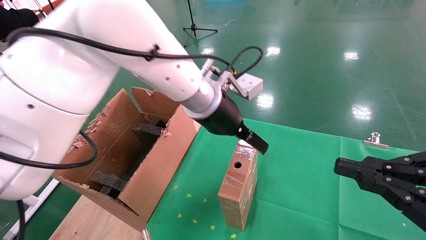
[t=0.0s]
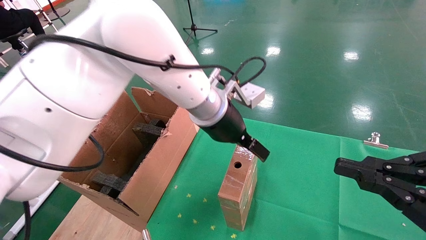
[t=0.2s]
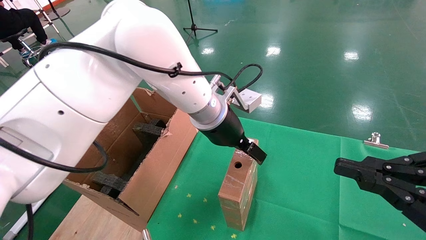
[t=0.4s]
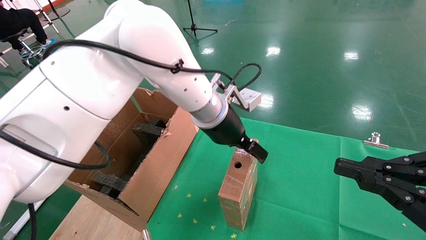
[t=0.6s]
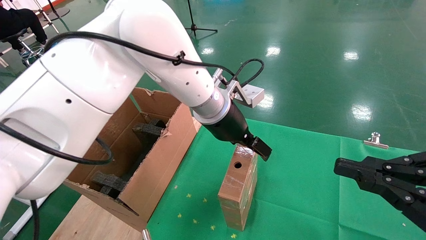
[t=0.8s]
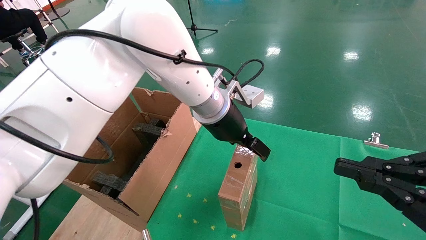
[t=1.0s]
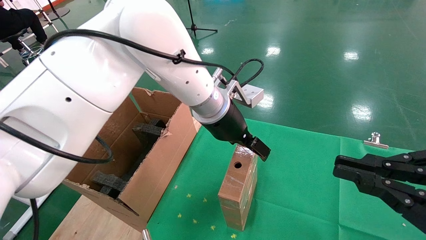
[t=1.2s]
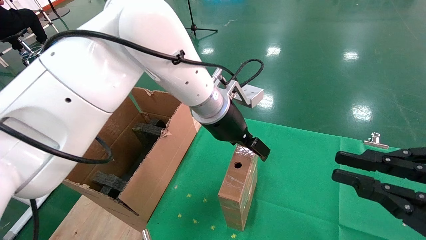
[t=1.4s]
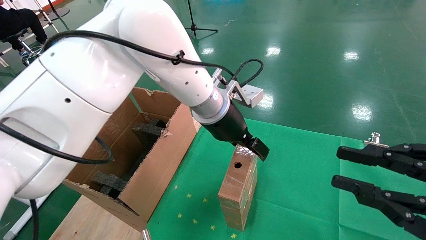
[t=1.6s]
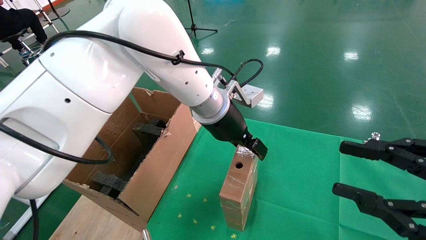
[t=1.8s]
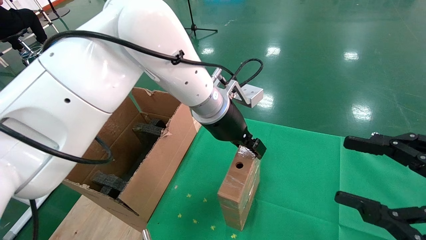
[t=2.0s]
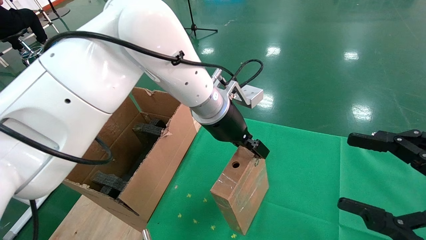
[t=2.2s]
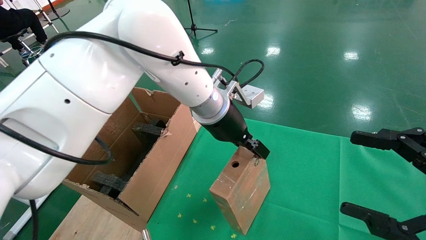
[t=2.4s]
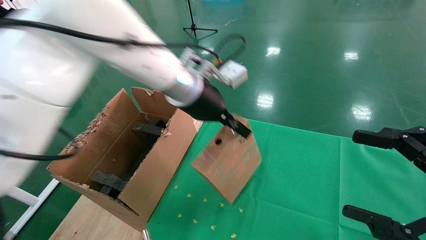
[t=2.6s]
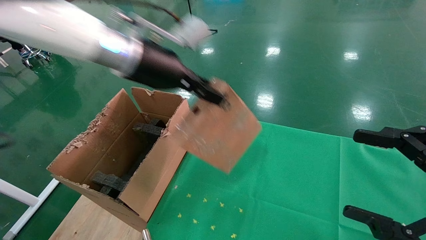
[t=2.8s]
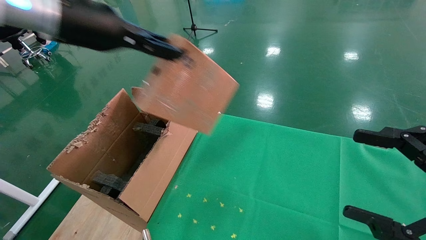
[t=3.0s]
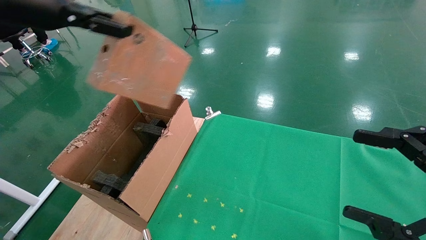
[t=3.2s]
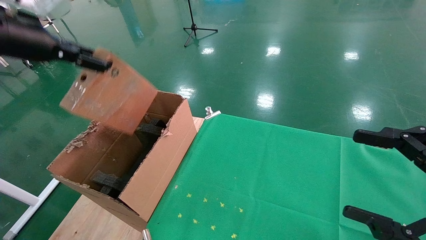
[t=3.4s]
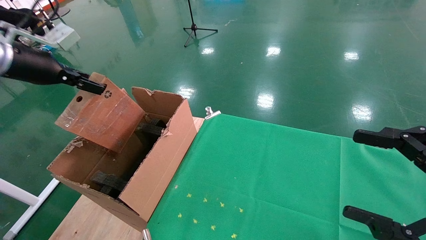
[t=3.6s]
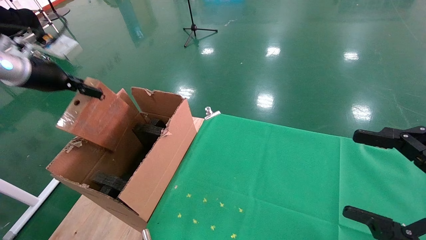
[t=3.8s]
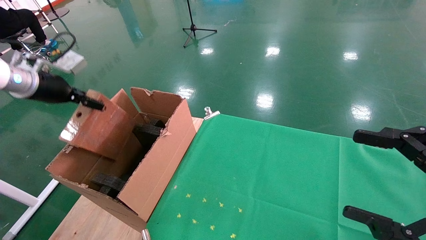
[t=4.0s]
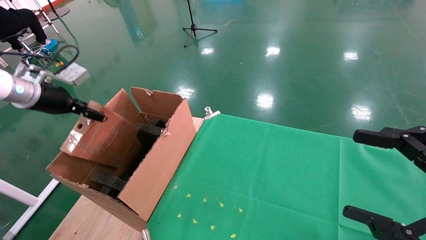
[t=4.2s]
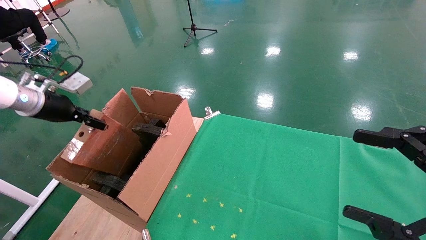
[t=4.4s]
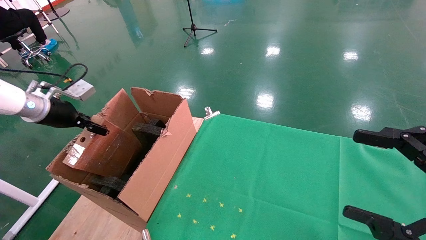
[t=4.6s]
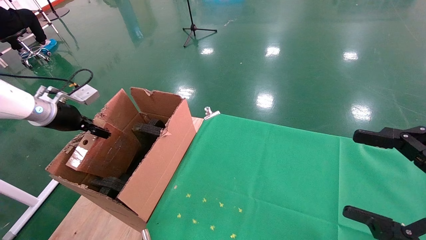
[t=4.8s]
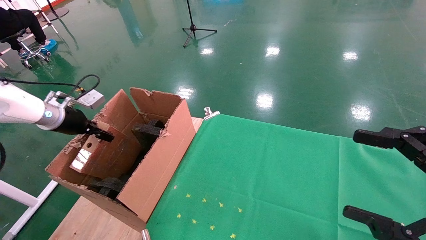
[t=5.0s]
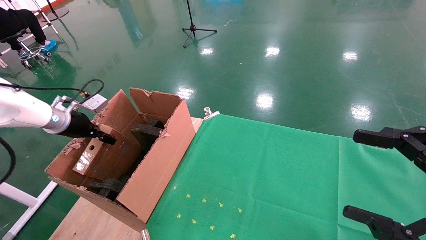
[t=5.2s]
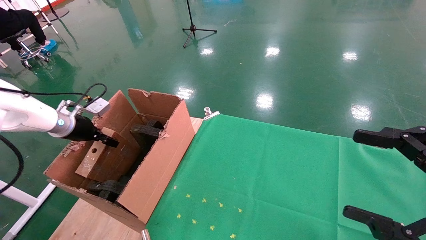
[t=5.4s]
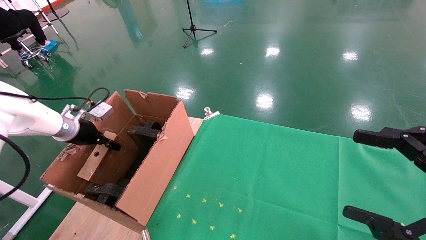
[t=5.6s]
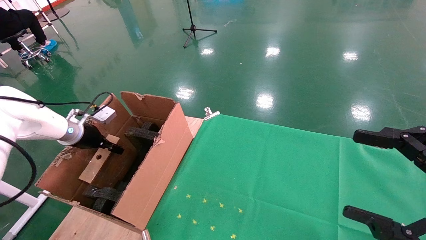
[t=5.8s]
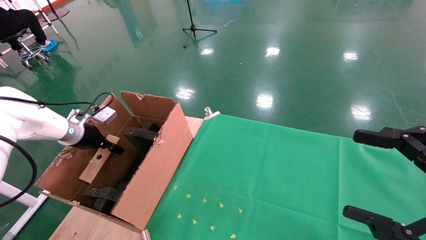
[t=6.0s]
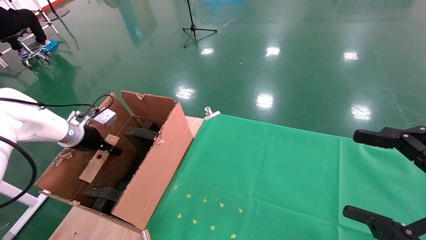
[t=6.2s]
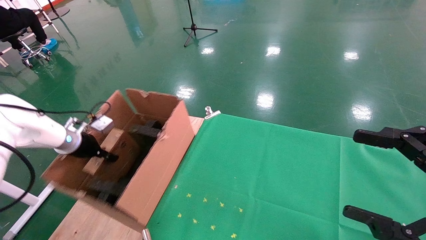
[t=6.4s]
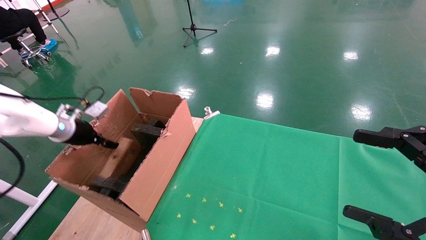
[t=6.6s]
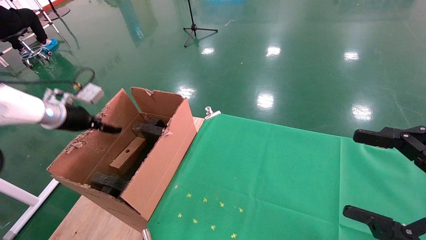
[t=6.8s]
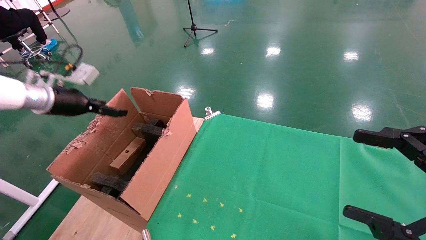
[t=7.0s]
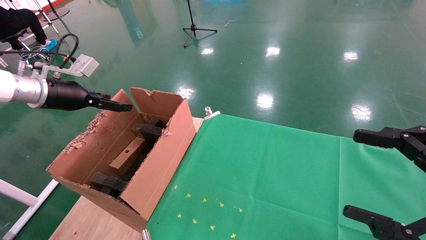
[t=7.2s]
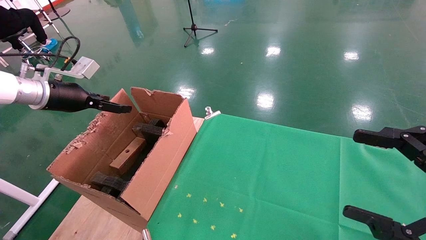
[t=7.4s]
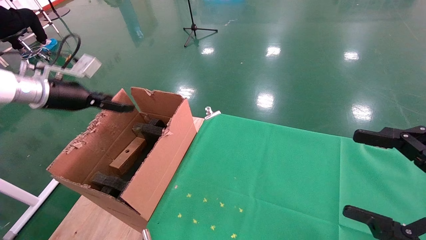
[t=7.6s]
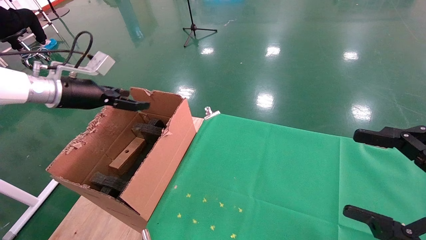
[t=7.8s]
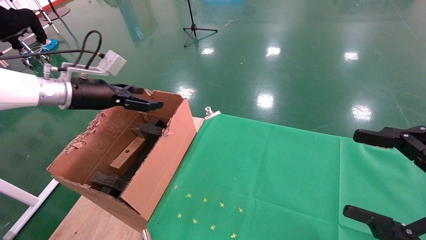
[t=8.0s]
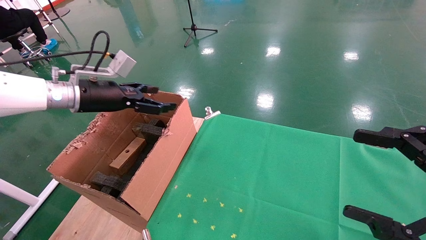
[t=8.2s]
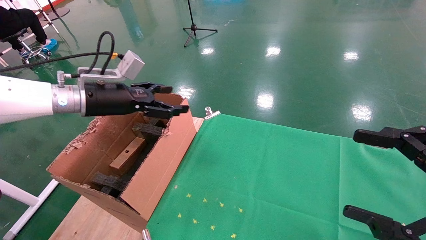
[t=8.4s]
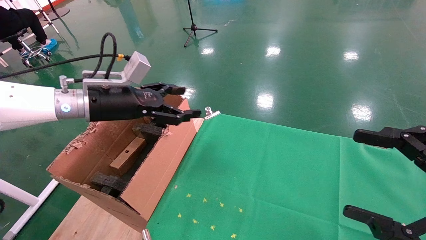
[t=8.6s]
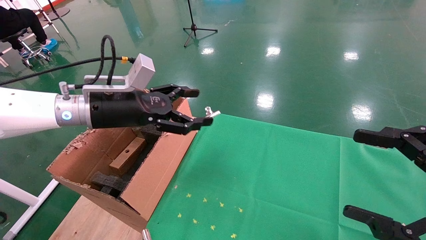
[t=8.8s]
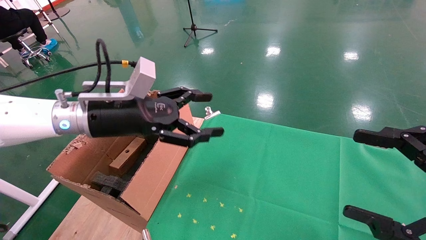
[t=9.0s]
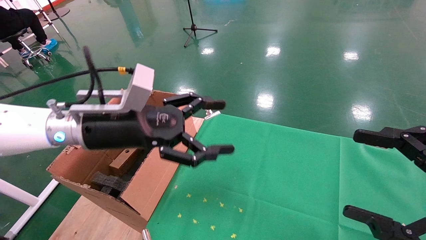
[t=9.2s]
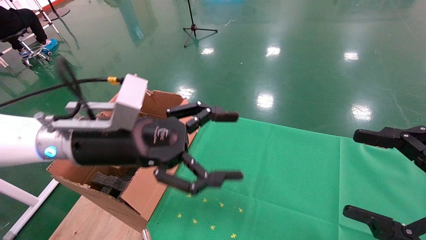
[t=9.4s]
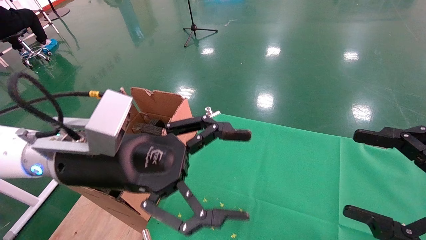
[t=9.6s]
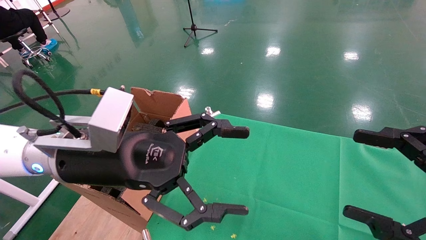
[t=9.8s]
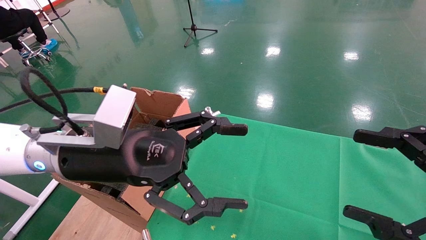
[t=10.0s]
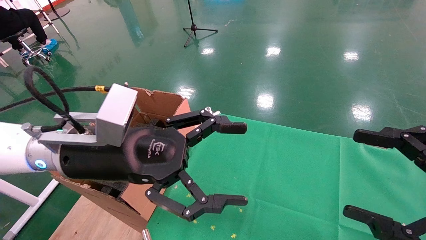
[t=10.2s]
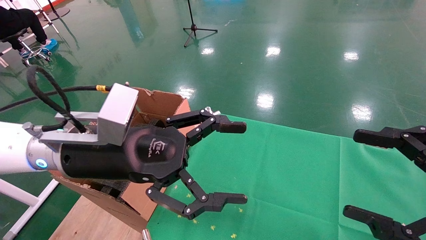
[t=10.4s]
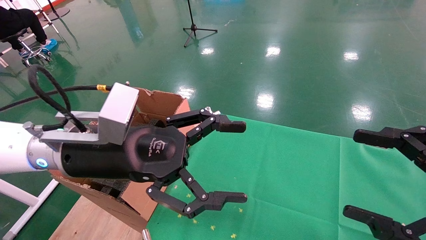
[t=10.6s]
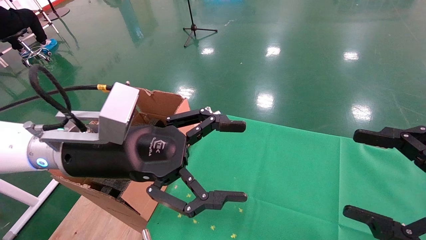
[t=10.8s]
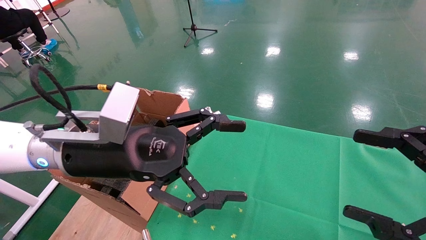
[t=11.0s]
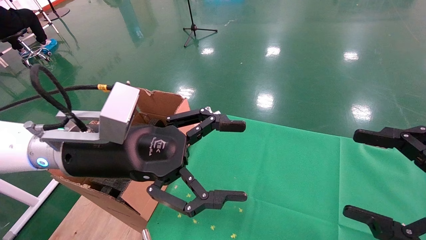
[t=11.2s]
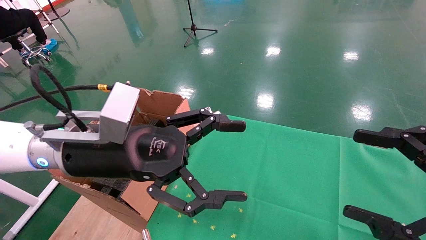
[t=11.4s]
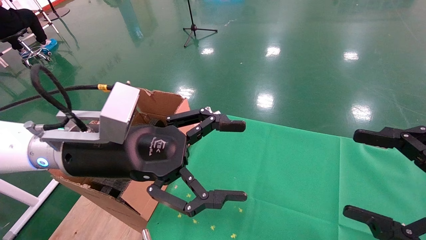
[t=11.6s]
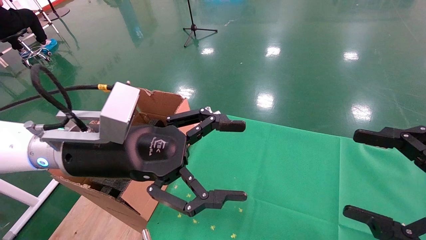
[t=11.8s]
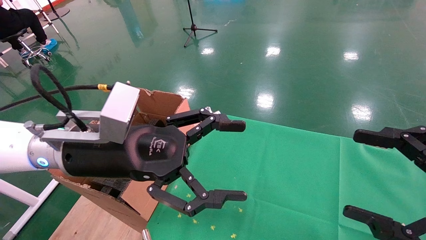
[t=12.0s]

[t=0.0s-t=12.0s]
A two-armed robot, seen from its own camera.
Task of the whole recording: using a robotic arm to pick up a cardboard box and palace it the carton.
Step, t=0.0s to t=2.0s: Pick up the mouse and the power cord paper box.
Step, t=2.2s to t=6.8s: Place the mouse and the power cord paper box into the container.
t=1.6s to t=3.0s: The right gripper opens its fingers; the left gripper goes some 30 cm to the left and upward, and closes its fingers.
t=3.0s to t=4.4s: The left gripper is displaced to the left and downward by about 25 cm.
t=4.4s to t=6.0s: The left gripper moves downward, about 15 cm.
t=6.0s to t=7.6s: The left gripper heads upward, covering roughly 15 cm, and opens its fingers.
t=7.6s to t=9.0s: The left gripper travels to the right by roughly 20 cm.
t=9.0s to t=10.4s: The left gripper moves backward, roughly 5 cm.
t=10.4s to t=12.0s: Neither gripper changes place.

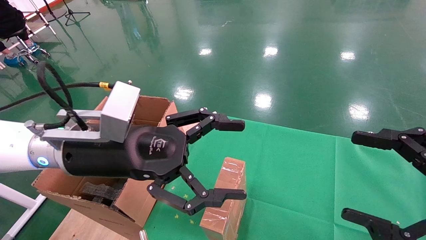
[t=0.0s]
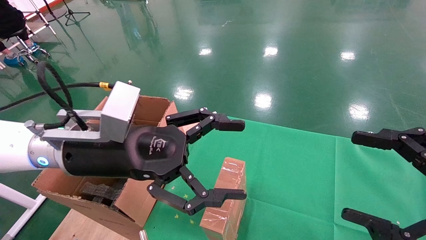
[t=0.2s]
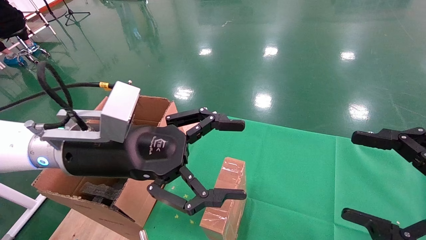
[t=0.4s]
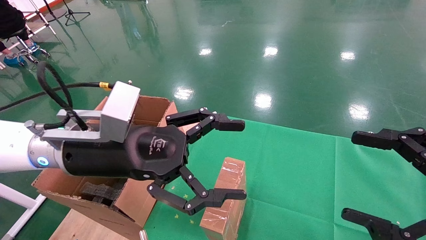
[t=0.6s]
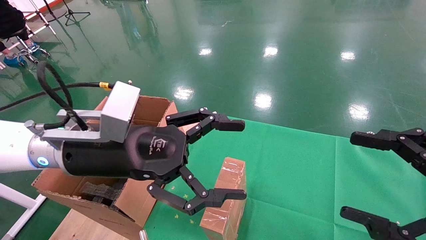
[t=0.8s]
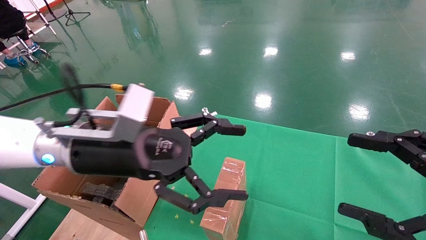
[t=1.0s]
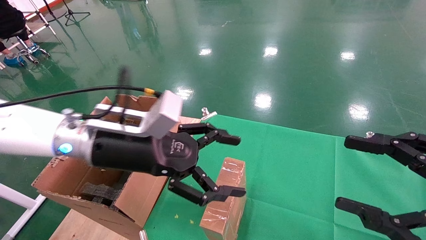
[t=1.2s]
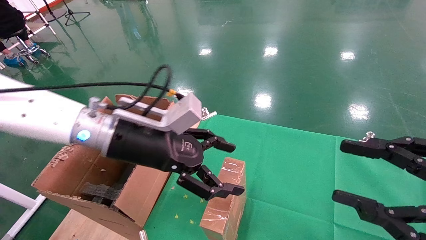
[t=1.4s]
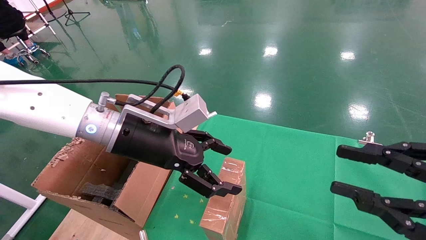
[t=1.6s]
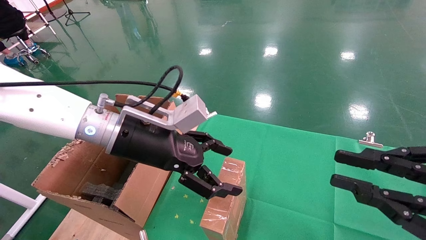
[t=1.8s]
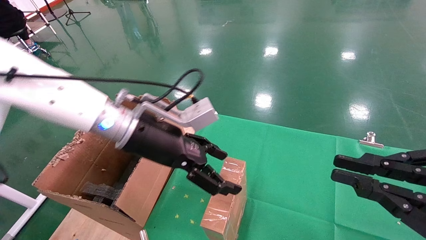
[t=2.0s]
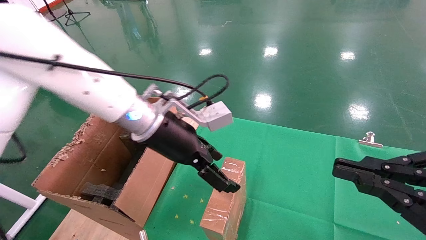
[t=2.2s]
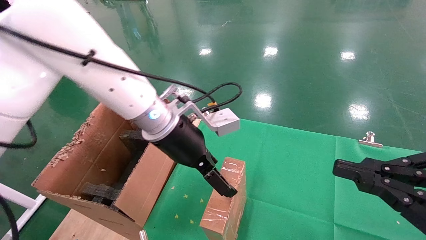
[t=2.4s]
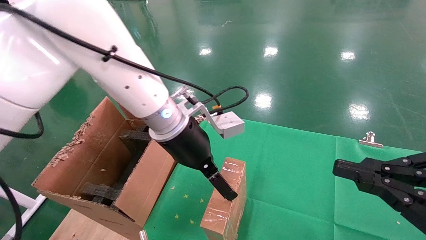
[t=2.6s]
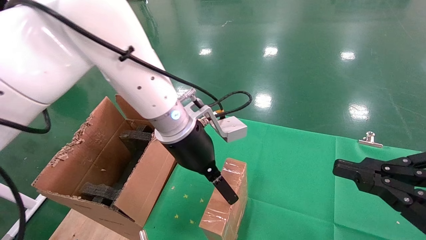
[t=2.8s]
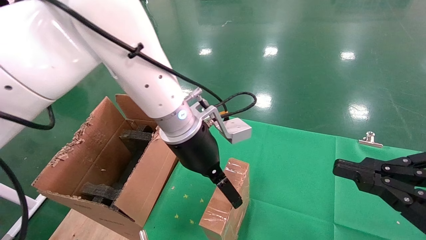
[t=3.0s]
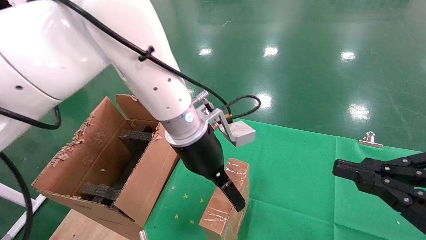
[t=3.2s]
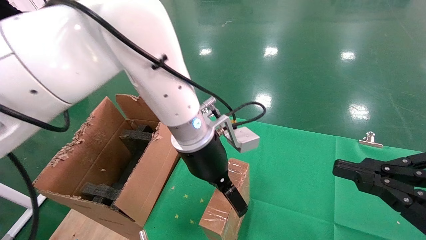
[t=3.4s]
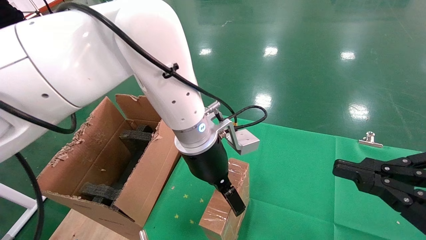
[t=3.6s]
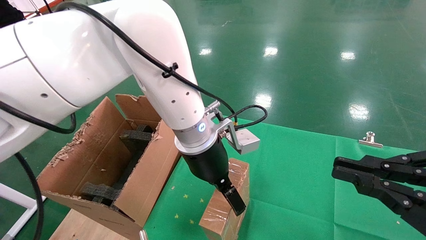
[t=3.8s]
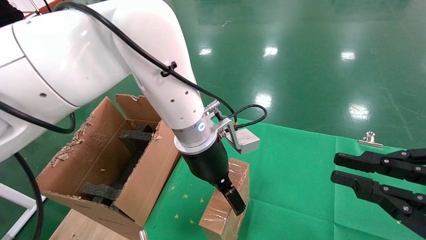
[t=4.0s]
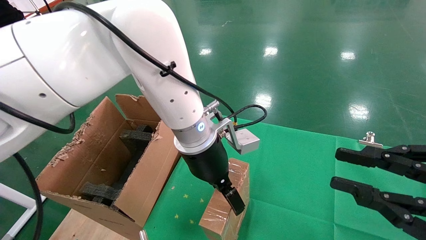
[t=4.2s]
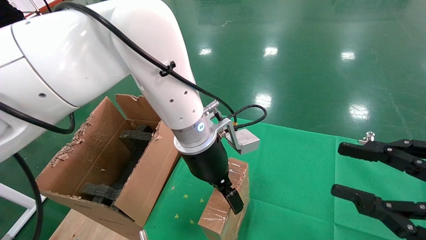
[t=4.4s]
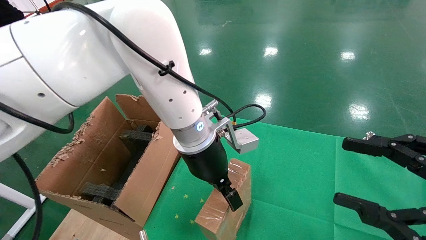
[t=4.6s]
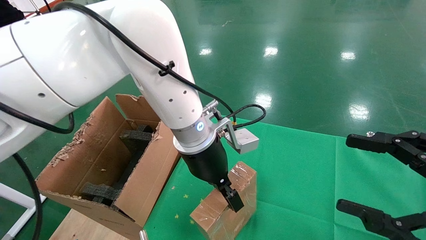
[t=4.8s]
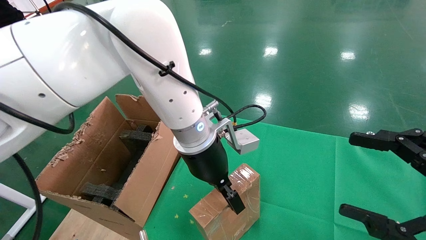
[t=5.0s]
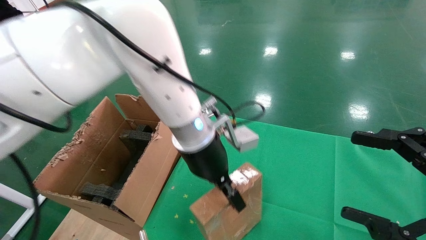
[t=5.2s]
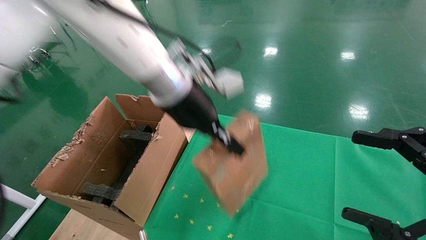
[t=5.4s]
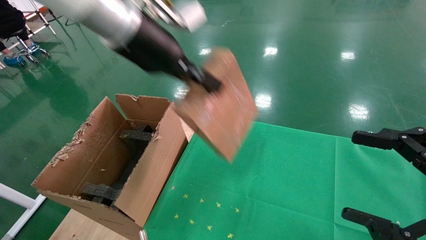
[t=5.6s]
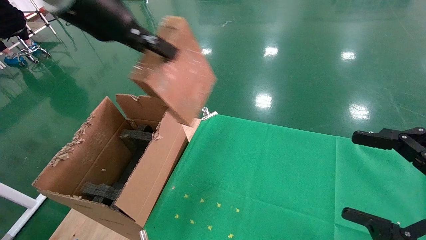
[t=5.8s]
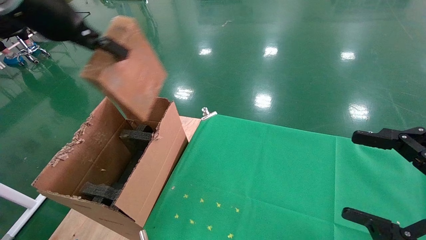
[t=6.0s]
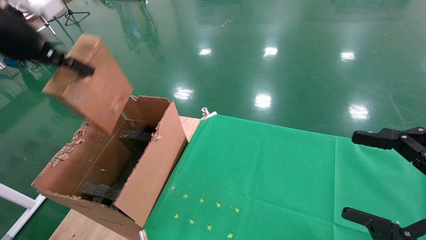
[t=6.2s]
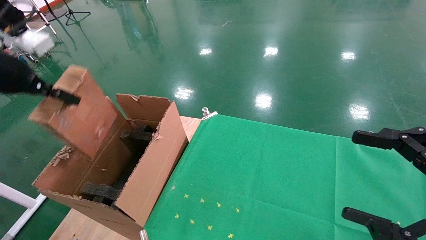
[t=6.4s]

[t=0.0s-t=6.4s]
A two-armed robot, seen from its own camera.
Task of the whole recording: using a robotic arm to pick up a cardboard box and palace it the carton.
Step, t=1.0s to t=4.6s: Pick up the mouse and the power cord paper box.
t=0.0s to t=1.6s: The right gripper closes up. The left gripper moves forward, approximately 5 cm.
t=1.6s to t=3.2s: The left gripper heads to the right, covering approximately 10 cm. The right gripper closes its fingers.
t=3.2s to t=4.8s: The right gripper opens its fingers, while the left gripper closes its fingers.
t=4.8s to t=6.4s: The left gripper shifts approximately 35 cm to the left, and closes.
